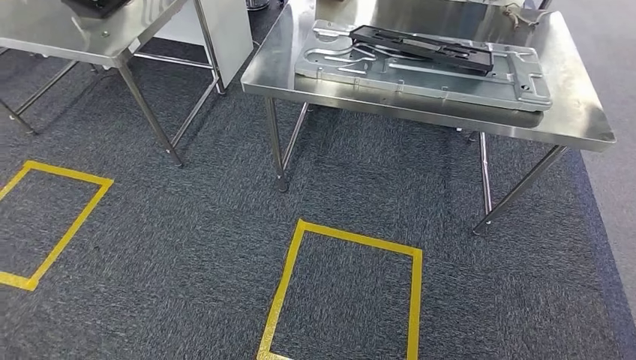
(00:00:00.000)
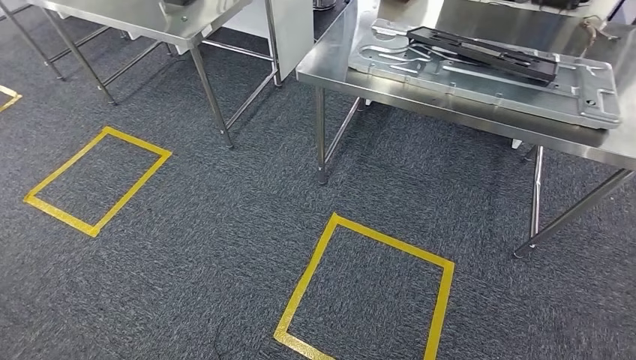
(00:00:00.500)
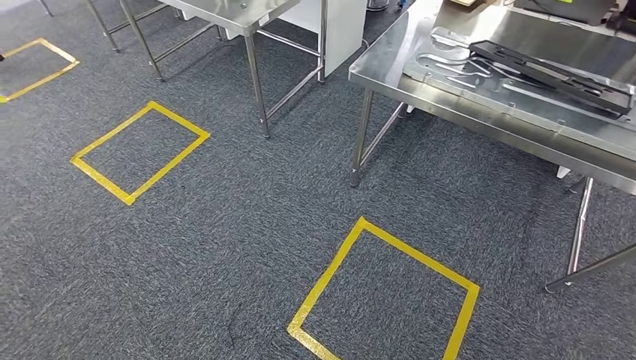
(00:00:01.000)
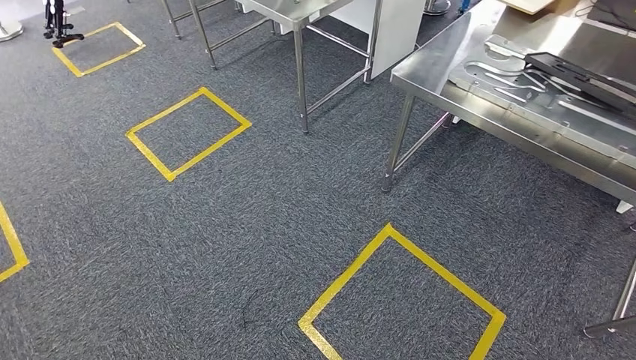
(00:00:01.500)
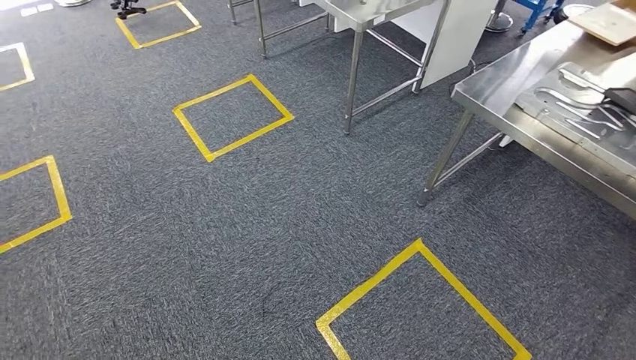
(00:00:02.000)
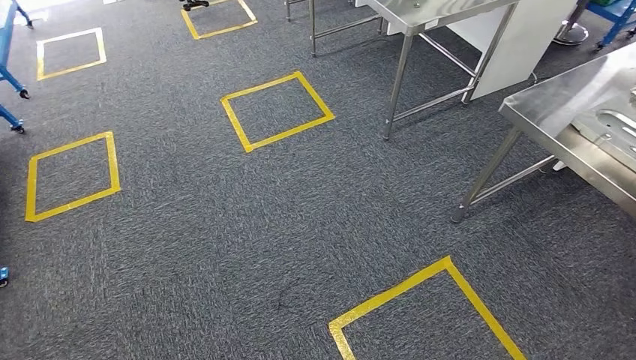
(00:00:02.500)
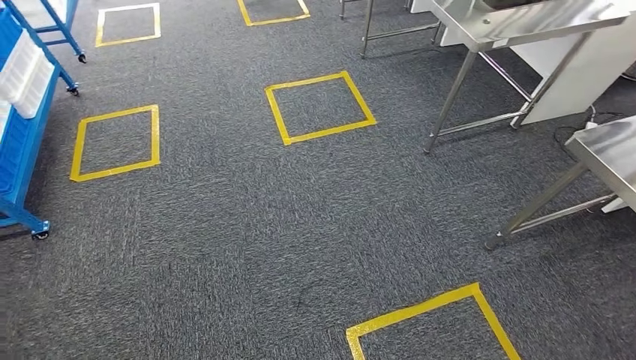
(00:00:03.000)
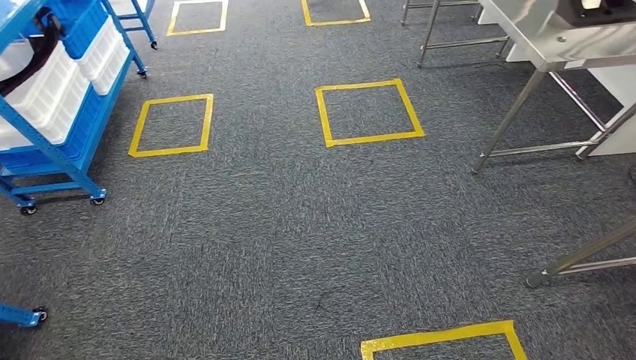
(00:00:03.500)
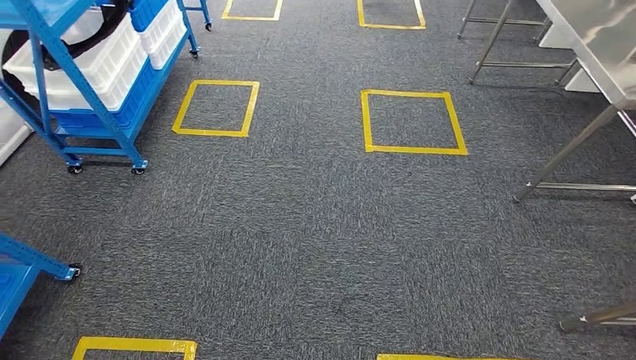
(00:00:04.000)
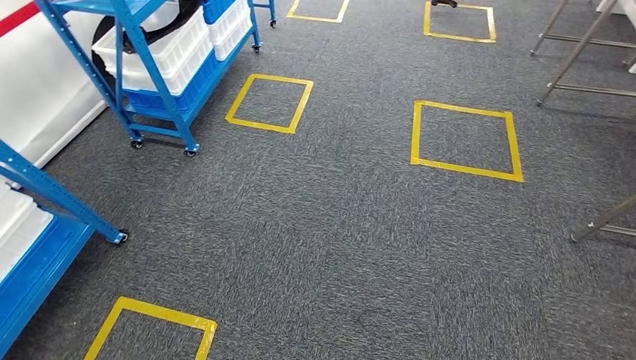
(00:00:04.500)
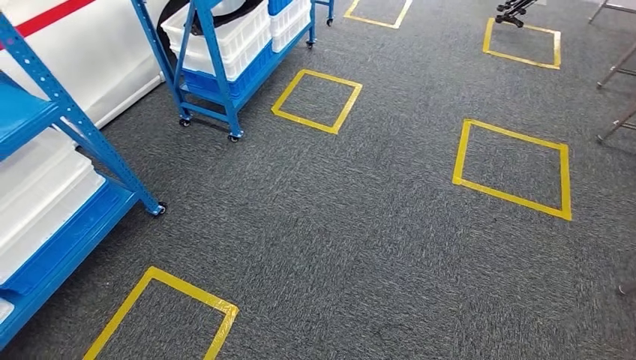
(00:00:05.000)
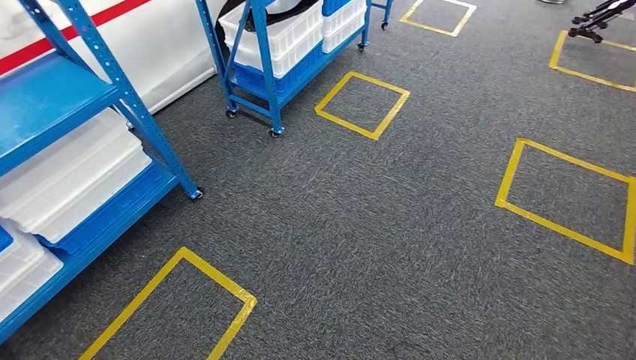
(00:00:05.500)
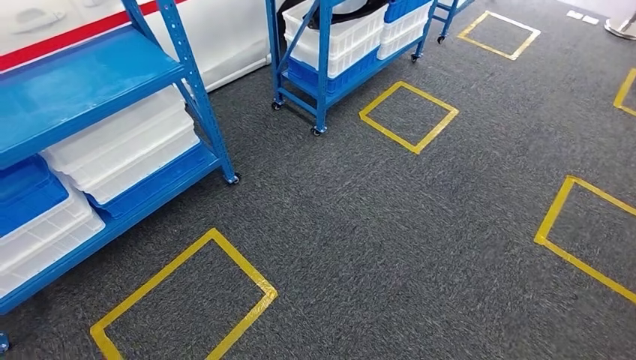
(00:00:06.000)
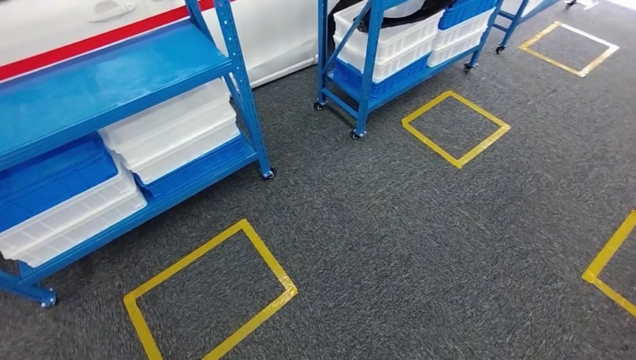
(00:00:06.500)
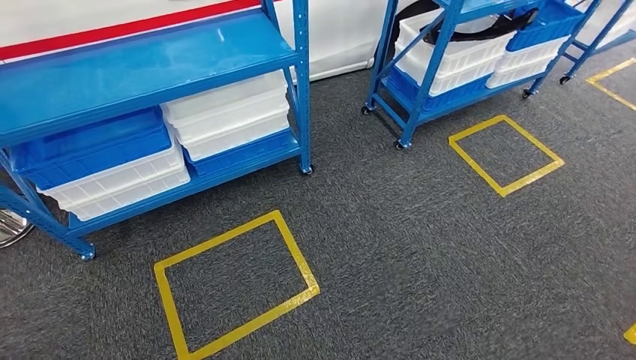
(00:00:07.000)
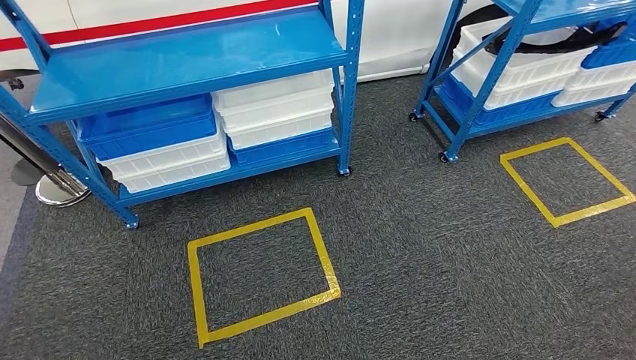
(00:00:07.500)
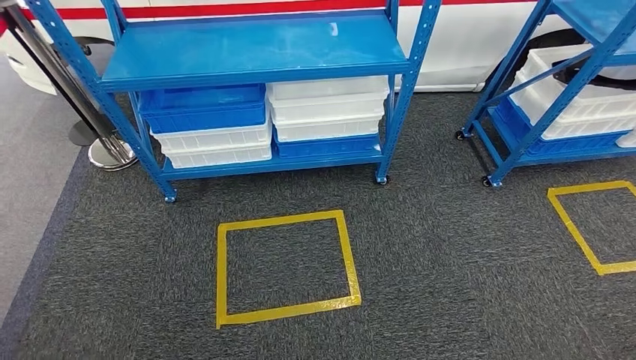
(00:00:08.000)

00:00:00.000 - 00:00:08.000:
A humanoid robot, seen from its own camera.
Step, 00:00:00.000 - 00:00:08.000: Return to the initial position at the shelf.
